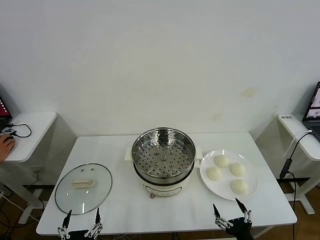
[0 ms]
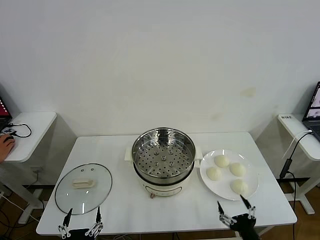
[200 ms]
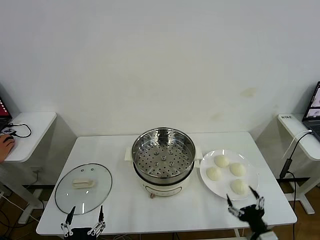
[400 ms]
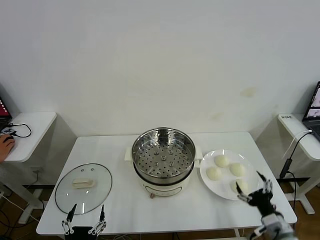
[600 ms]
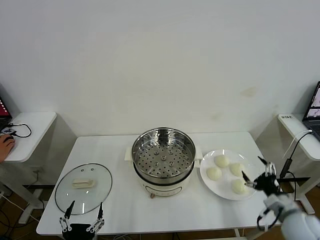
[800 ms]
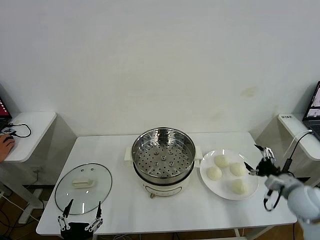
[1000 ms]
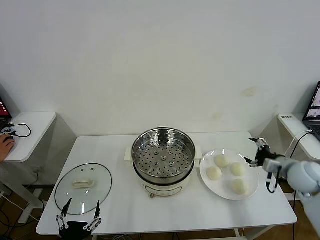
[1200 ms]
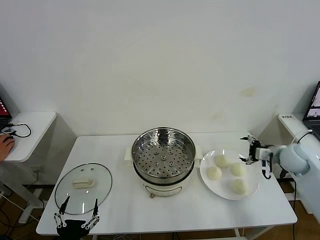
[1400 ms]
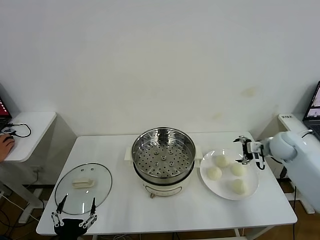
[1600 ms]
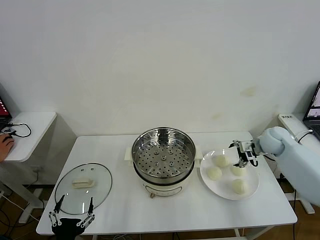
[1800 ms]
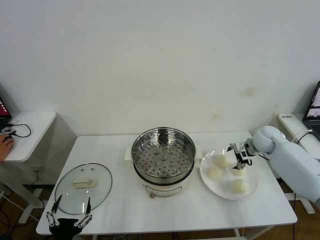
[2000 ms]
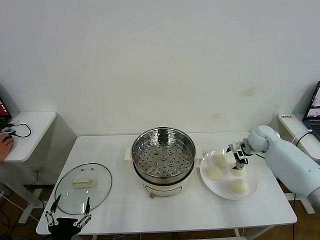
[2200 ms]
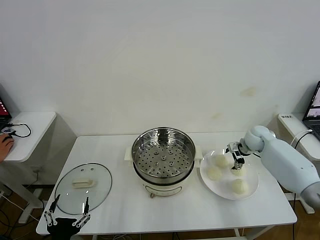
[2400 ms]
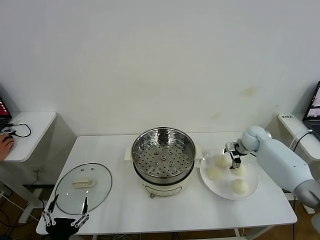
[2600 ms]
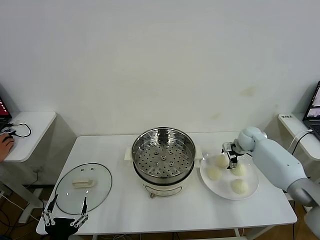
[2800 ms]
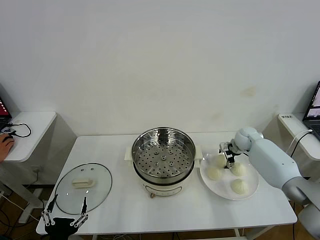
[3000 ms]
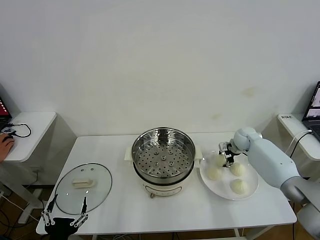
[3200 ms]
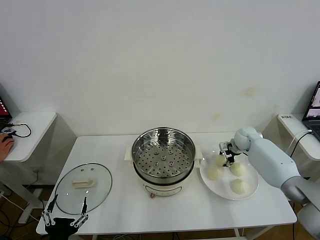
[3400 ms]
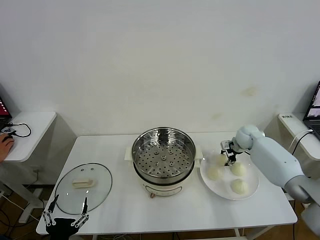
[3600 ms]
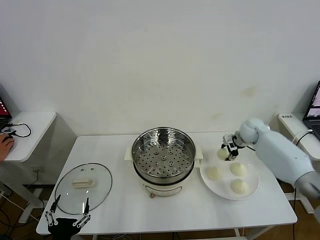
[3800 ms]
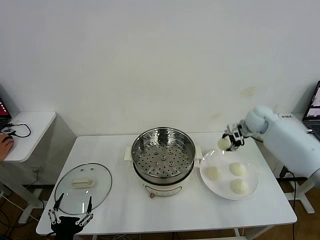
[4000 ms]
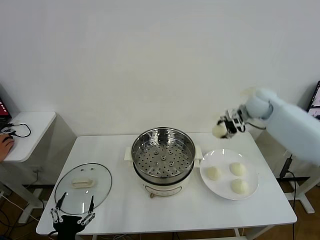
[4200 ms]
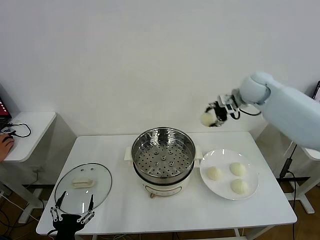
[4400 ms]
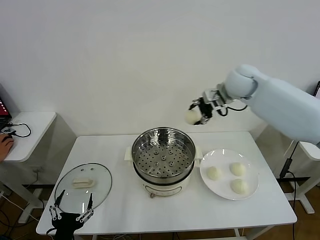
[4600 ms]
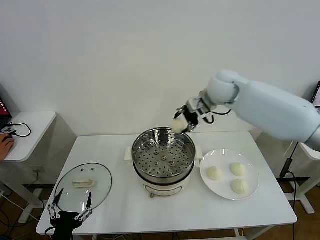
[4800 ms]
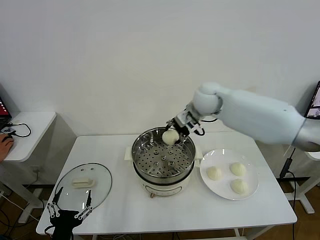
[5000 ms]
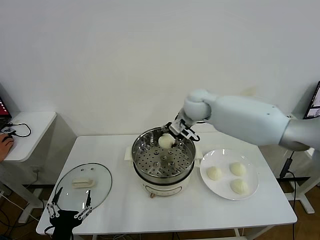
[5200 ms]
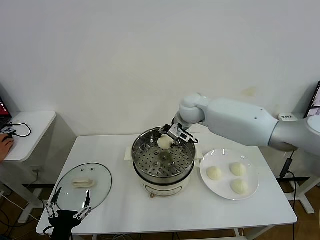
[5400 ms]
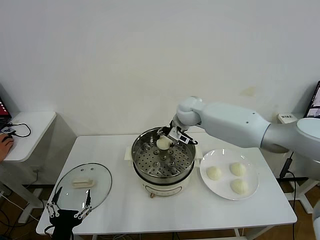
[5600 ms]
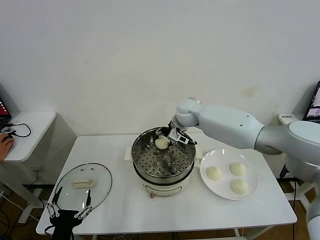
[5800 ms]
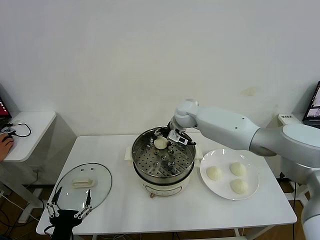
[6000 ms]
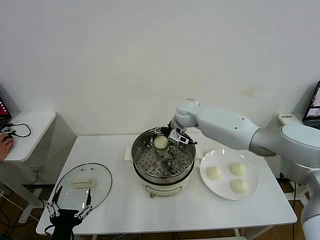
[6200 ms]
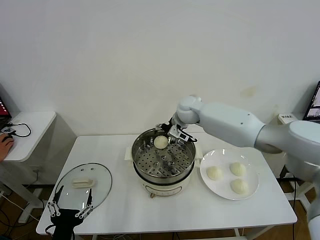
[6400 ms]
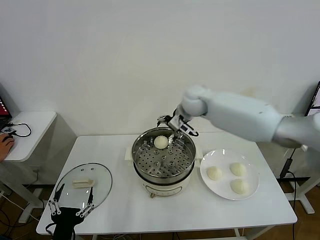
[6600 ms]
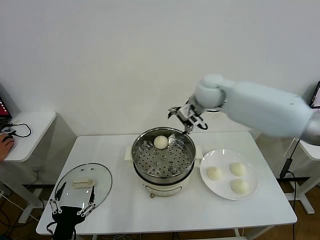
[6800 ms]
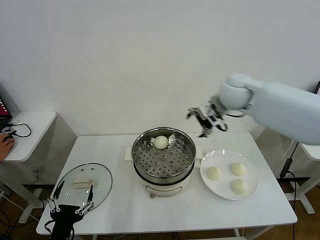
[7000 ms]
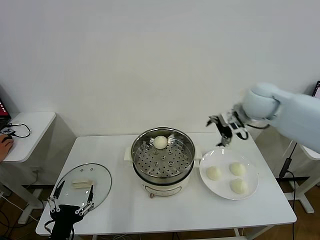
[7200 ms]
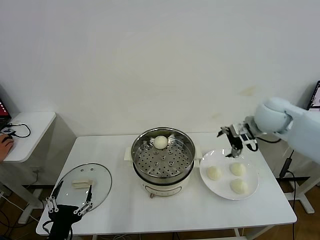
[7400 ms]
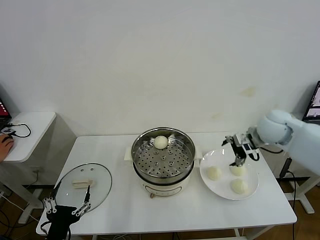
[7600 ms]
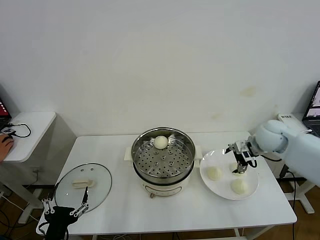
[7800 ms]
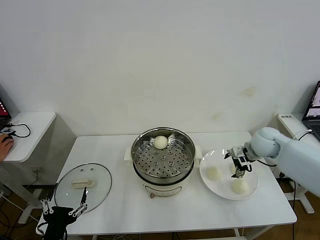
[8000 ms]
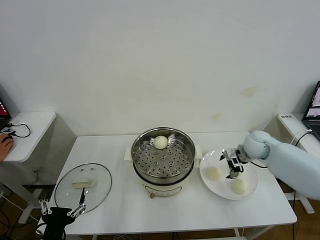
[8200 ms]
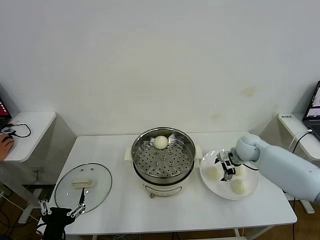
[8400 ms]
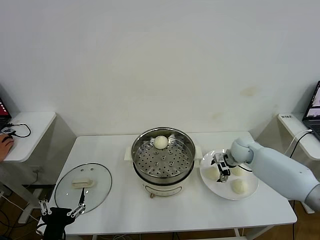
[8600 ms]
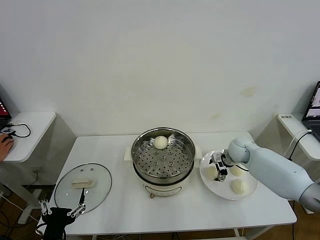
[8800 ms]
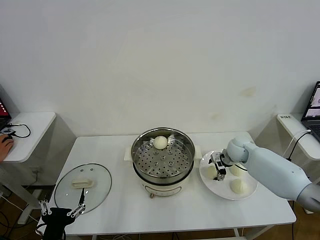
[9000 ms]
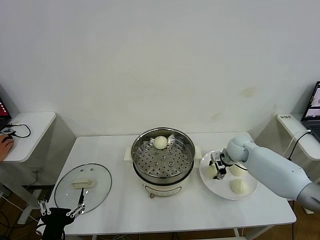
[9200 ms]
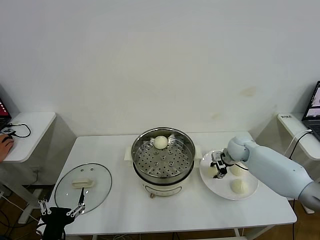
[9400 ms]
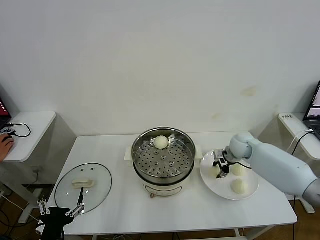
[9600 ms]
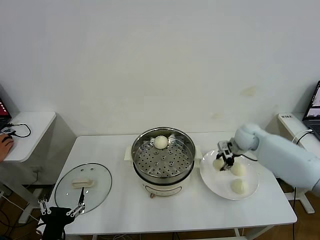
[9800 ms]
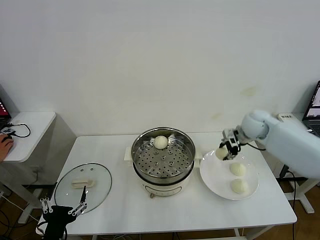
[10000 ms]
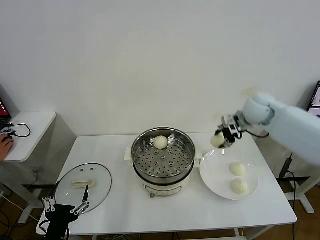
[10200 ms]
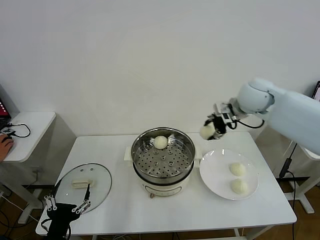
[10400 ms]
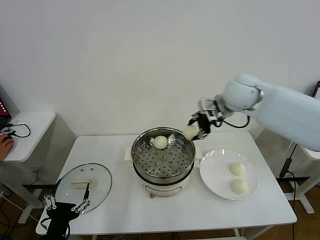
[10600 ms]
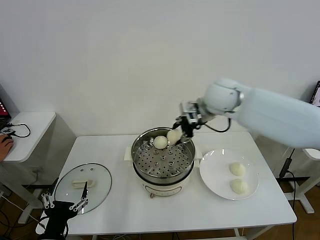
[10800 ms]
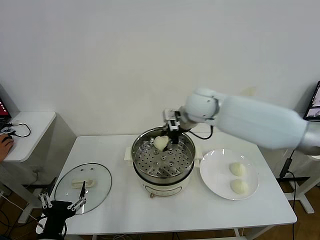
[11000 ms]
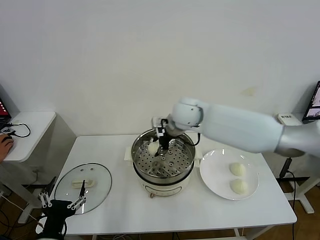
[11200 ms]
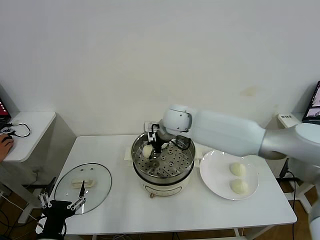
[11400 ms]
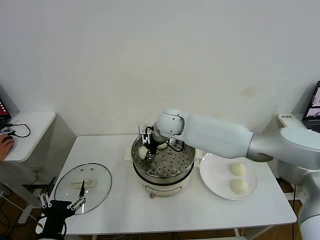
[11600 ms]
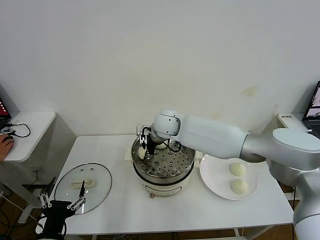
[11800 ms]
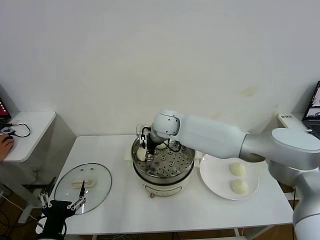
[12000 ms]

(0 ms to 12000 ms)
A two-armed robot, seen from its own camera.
Task of the whole recording: take steamed baozi put them in steamer then cover it.
Step, 0 ms - 3200 ms: Grasp the baozi in the plate with right gripper.
Step, 3400 ms - 6000 ms: Place the baozi on the steamer with right gripper.
Step, 6200 ms - 9200 ms: Grasp the baozi in the plate with right gripper.
Step, 9400 ms - 12000 ms: Place the baozi on the steamer with right gripper.
1600 ms - 3000 ms: The right gripper heads forward, downward and to the left, covering roughly 15 cm.
3000 ms - 4400 ms: The right gripper shifts roughly 25 cm upward, and closes up.
4400 ms - 6000 ms: The right gripper moves to the left and downward, about 25 cm.
6000 ms - 7600 ms: The right gripper heads to the right and backward, covering some 25 cm, and opens.
7600 ms - 9000 ms: The right gripper is displaced downward by roughly 20 cm.
9000 ms - 10400 ms: The right gripper travels upward by about 25 cm, and closes its fingers.
10400 ms - 12000 ms: The right gripper heads to the left and downward, covering about 30 cm, and opens its fingers.

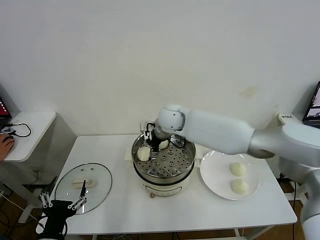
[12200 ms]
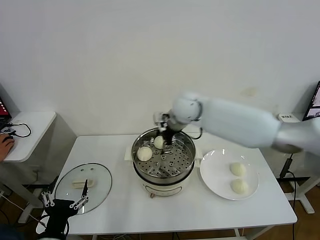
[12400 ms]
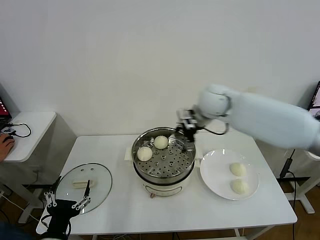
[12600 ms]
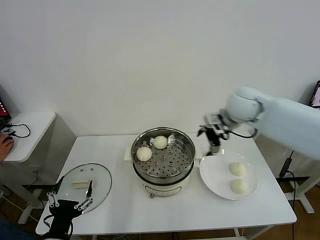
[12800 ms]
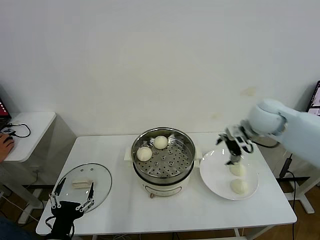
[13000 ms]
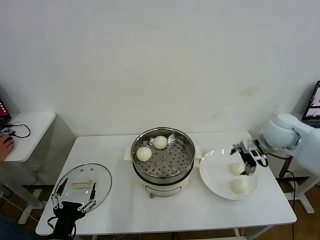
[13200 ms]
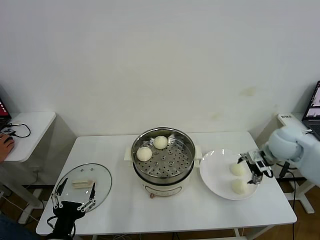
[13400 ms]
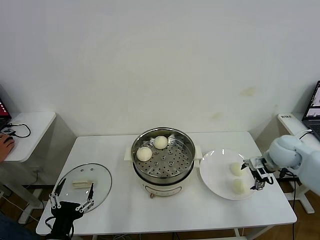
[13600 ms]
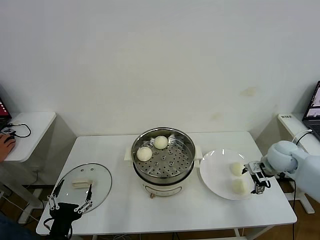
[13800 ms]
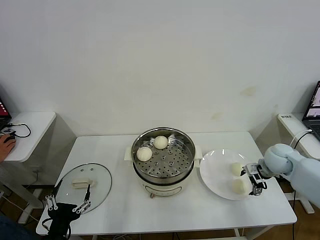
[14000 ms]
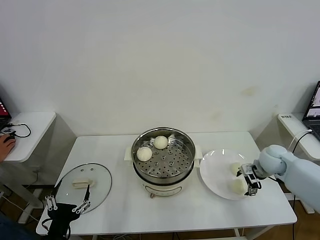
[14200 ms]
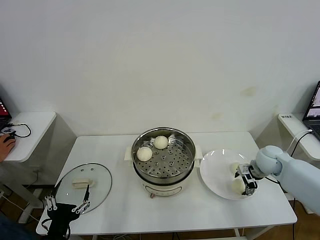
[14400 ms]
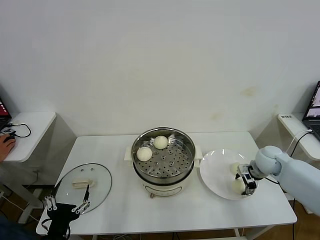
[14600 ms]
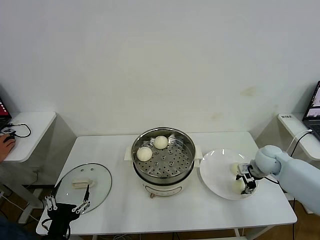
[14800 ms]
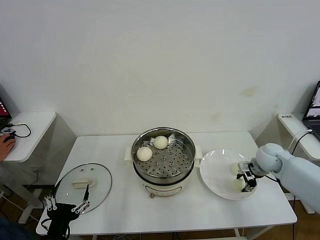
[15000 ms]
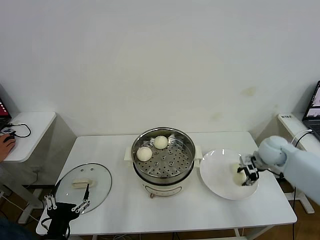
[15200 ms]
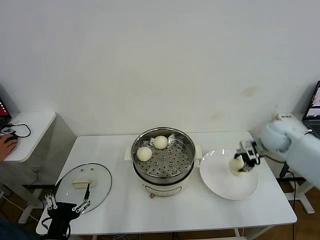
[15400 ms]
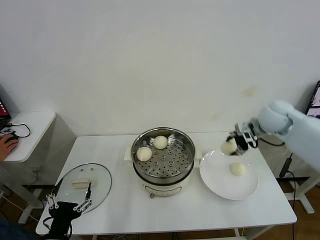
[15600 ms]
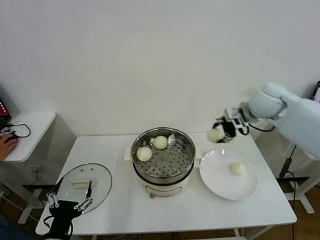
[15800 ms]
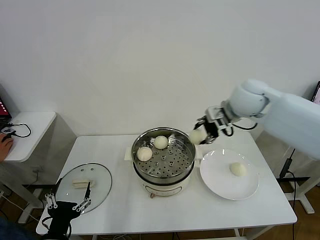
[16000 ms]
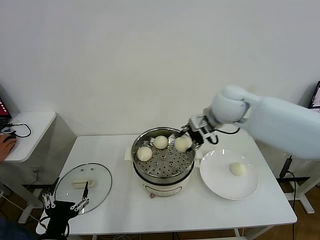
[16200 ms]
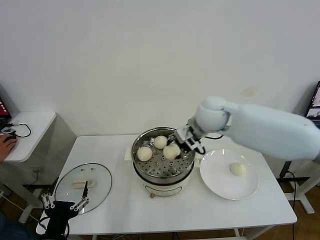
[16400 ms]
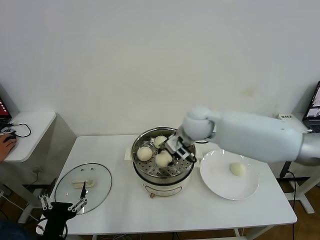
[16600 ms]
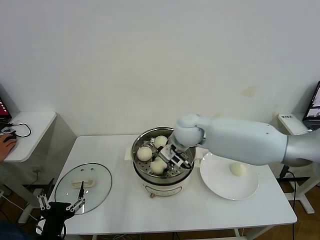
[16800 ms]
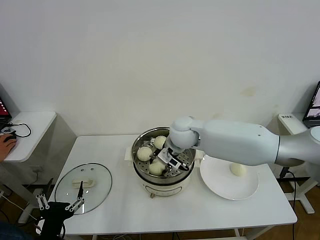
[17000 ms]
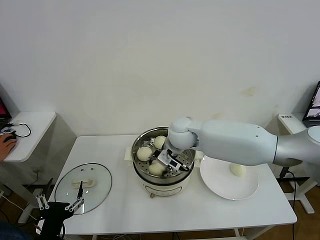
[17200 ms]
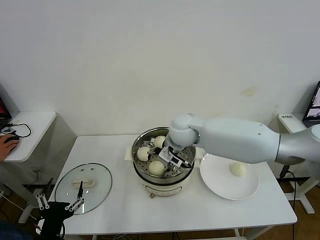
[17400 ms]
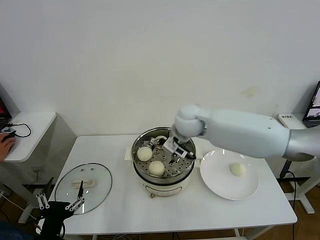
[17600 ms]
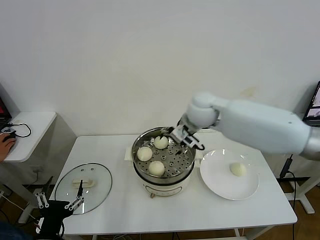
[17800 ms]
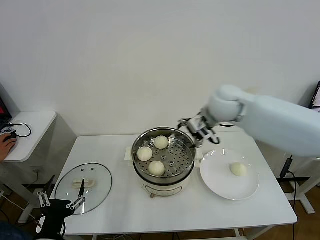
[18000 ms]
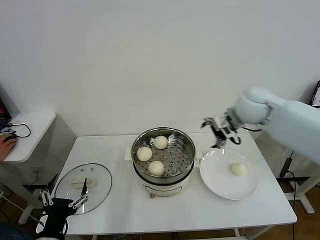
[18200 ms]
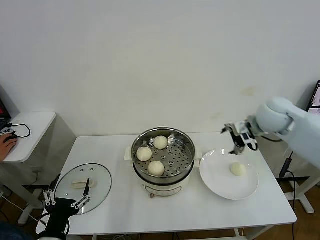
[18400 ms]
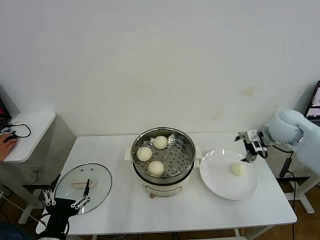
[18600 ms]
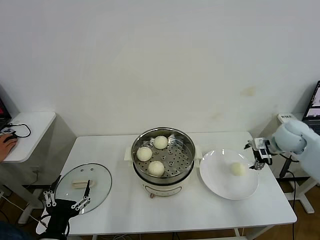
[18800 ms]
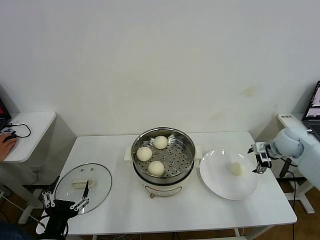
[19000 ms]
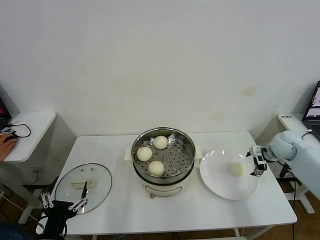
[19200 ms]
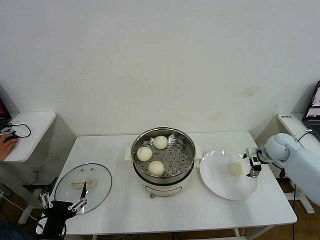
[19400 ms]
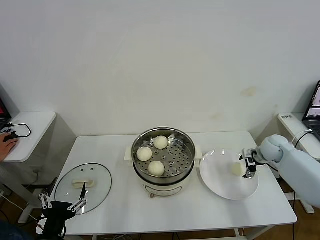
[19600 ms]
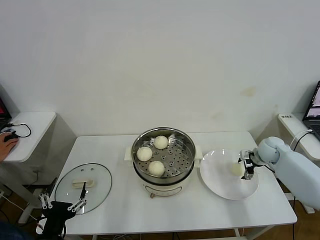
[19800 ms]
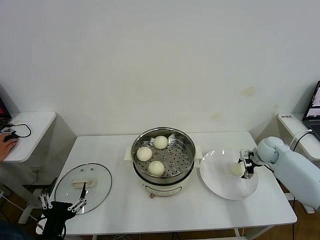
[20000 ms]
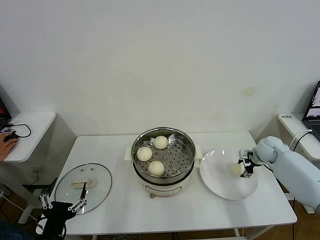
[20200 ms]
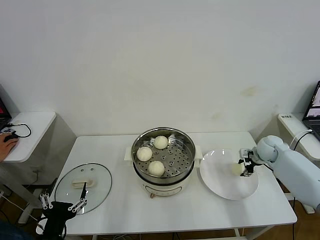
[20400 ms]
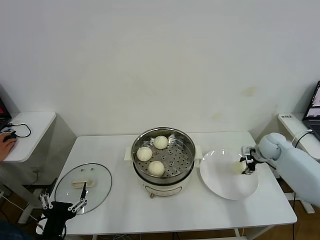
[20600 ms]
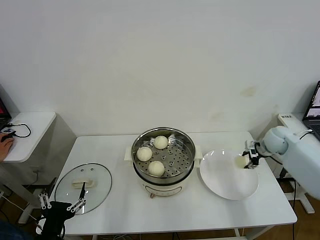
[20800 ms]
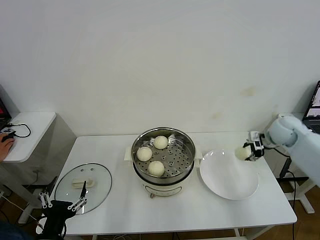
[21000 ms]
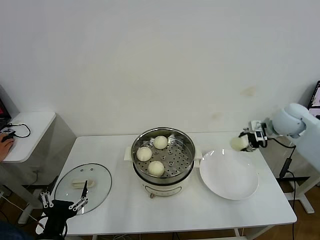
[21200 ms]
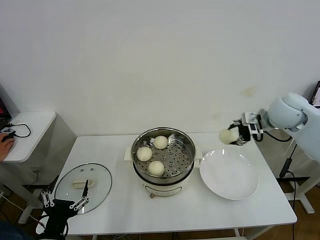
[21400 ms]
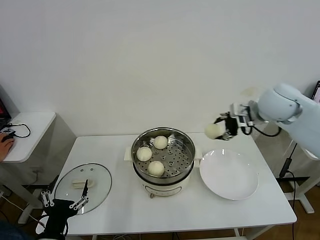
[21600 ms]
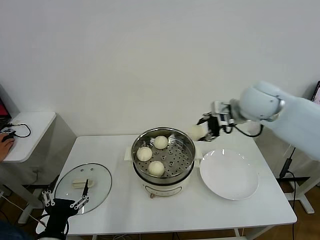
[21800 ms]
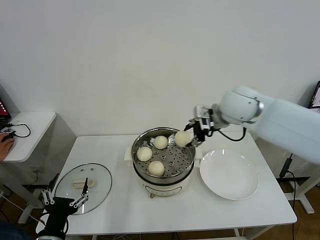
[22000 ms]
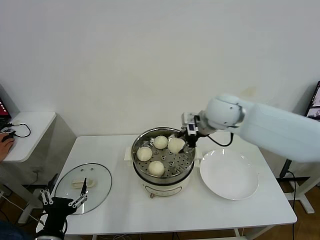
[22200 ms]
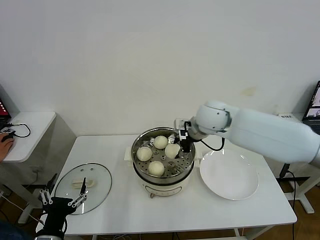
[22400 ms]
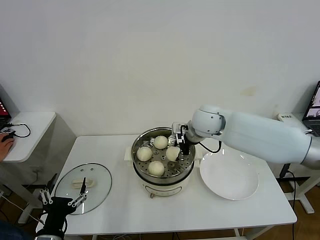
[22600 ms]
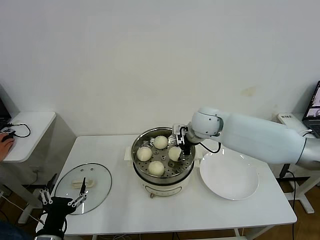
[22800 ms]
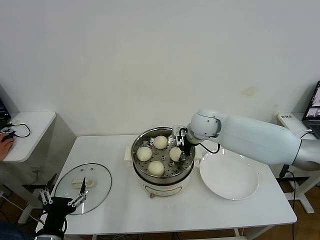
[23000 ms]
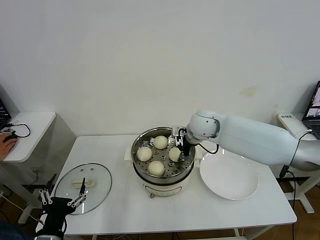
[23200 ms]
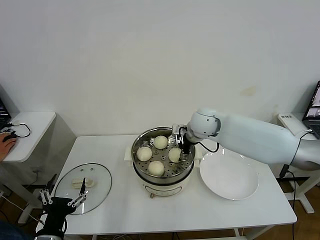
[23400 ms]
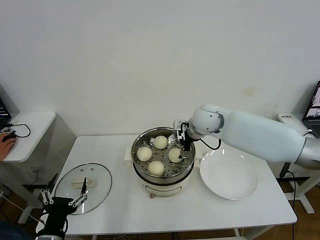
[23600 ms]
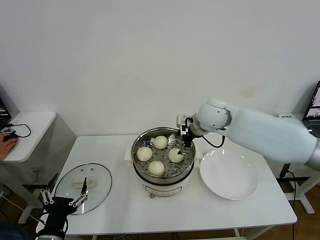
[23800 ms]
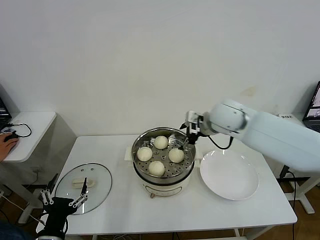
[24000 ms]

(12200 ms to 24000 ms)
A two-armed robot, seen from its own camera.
Task of the whole recording: take steamed baozi put them in steamer then cover it.
Step, 12200 ms - 14800 ms: Grasp the baozi in the plate with right gripper.
Step, 15000 ms - 17400 ms: Place the baozi on the steamer with right gripper.
Step, 17600 ms - 20400 ms: Grasp the baozi in the plate with right gripper.
Step, 20600 ms - 23400 ms: Place the baozi on the steamer with right gripper.
12200 ms - 13600 ms: The right gripper moves to the right, approximately 35 cm.
13600 ms - 15200 ms: The right gripper closes up.
15200 ms - 16600 ms: The right gripper travels to the left and upward by approximately 30 cm.
16600 ms - 18200 ms: The right gripper heads to the right and upward, covering some 15 cm, and opens.
18200 ms - 19600 ms: The right gripper shifts some 30 cm downward and to the right.
19600 ms - 21000 ms: The right gripper shifts some 10 cm upward, and closes up.
21000 ms - 22600 ms: The right gripper is displaced to the left by approximately 30 cm.
22600 ms - 24000 ms: The right gripper opens up.
